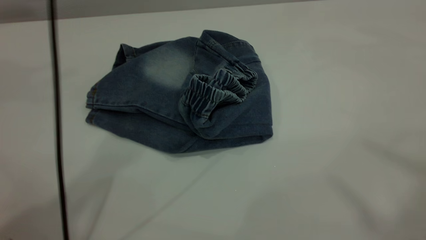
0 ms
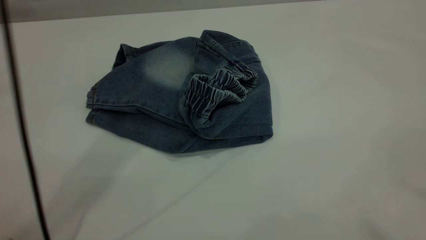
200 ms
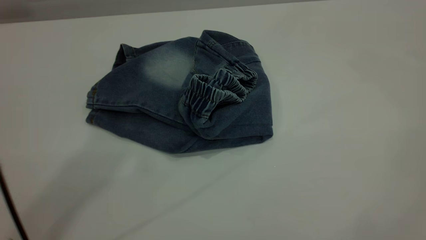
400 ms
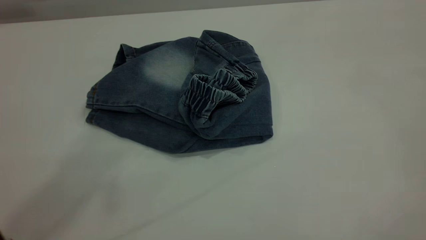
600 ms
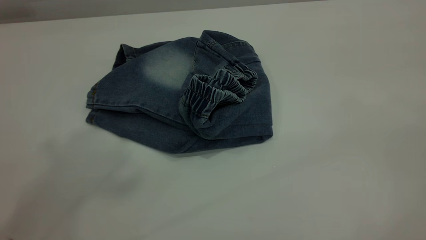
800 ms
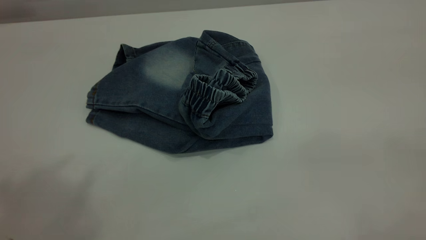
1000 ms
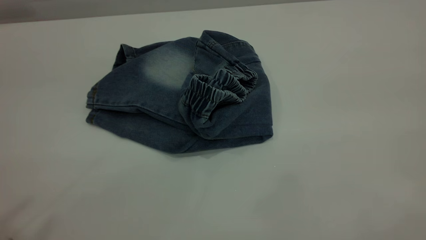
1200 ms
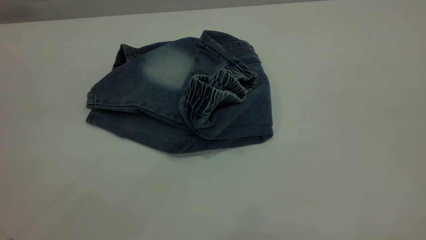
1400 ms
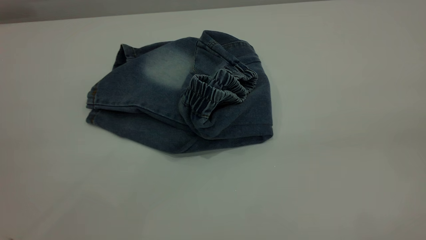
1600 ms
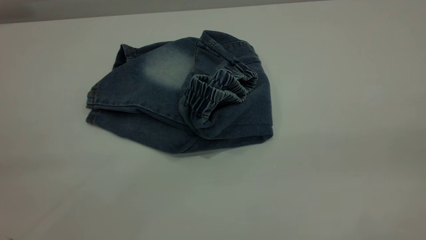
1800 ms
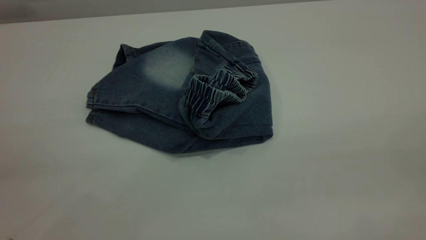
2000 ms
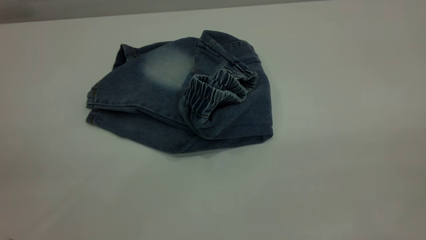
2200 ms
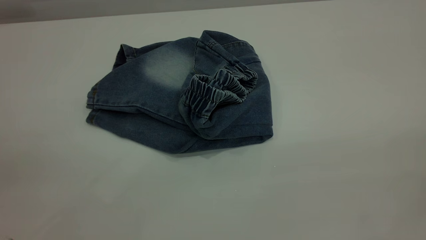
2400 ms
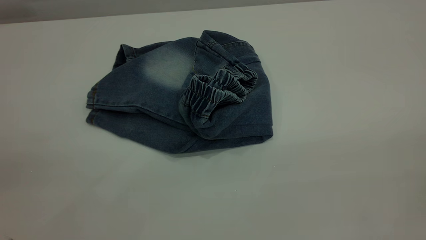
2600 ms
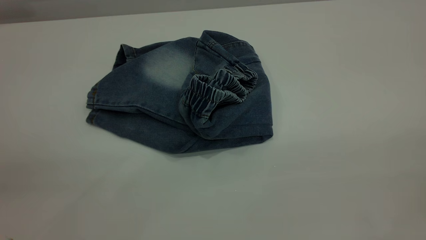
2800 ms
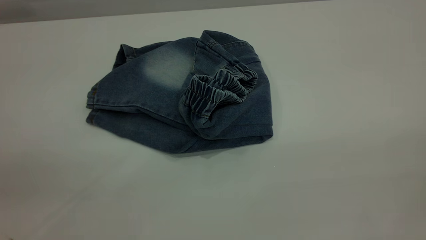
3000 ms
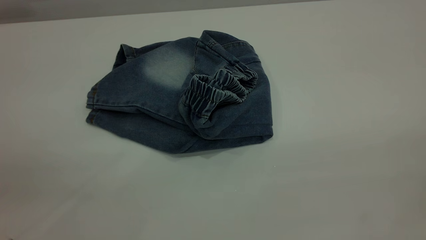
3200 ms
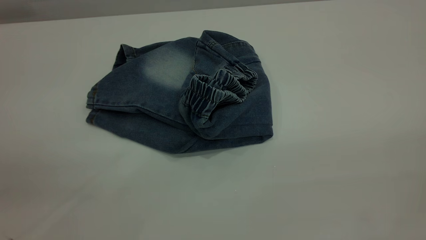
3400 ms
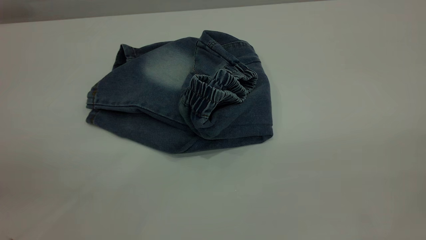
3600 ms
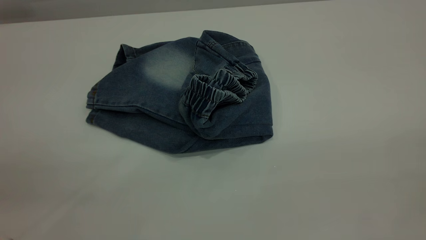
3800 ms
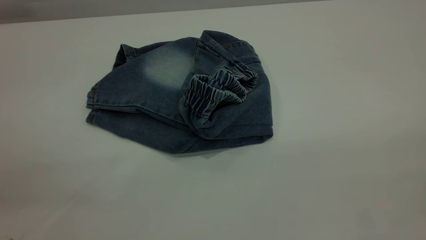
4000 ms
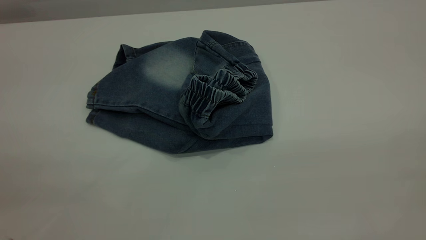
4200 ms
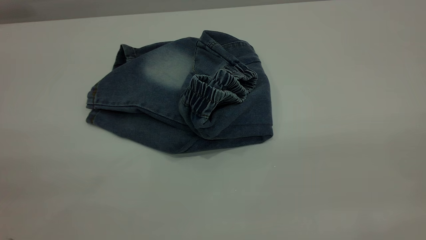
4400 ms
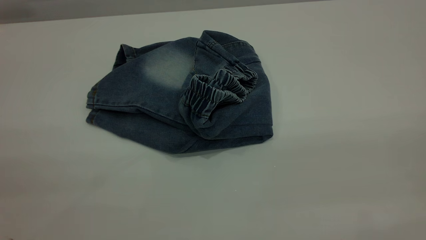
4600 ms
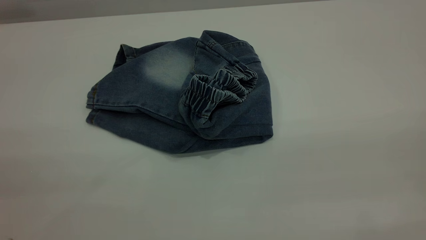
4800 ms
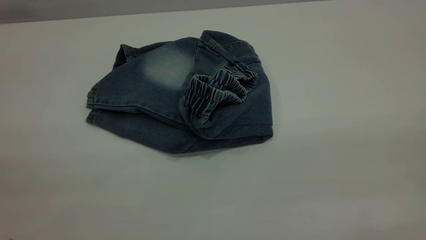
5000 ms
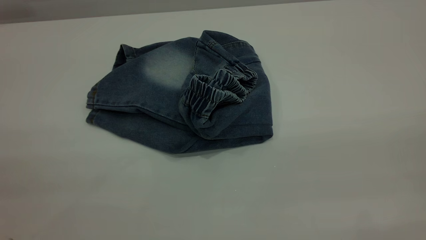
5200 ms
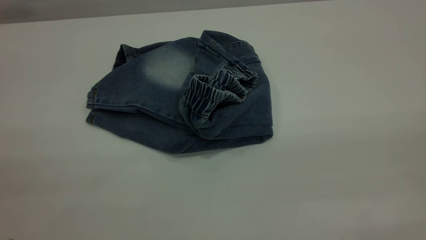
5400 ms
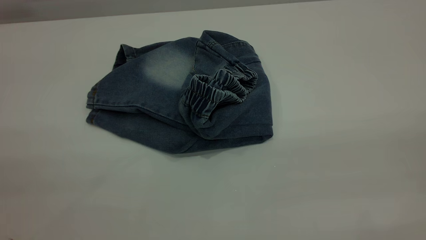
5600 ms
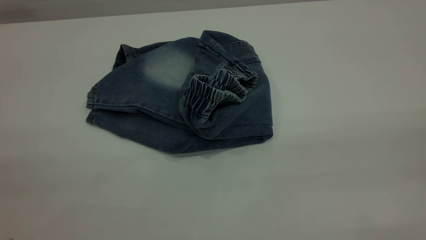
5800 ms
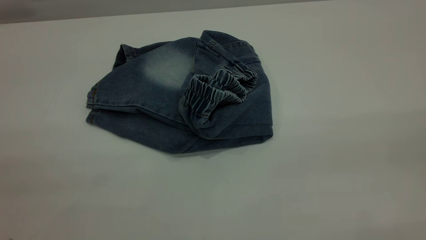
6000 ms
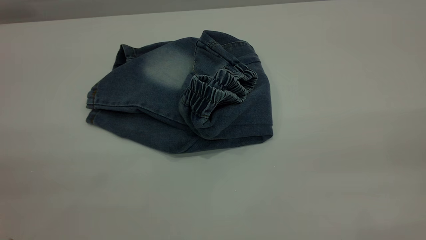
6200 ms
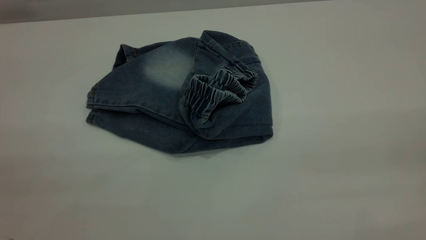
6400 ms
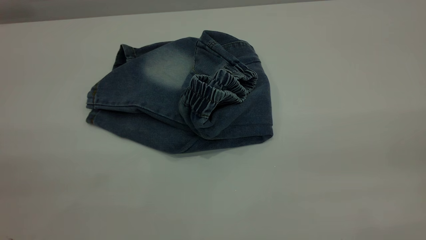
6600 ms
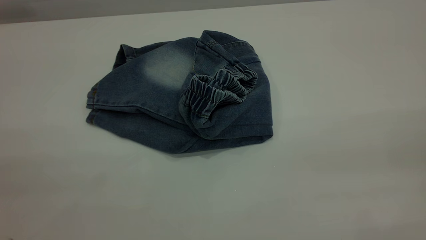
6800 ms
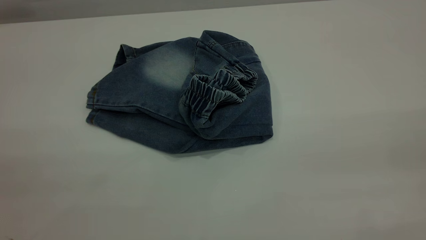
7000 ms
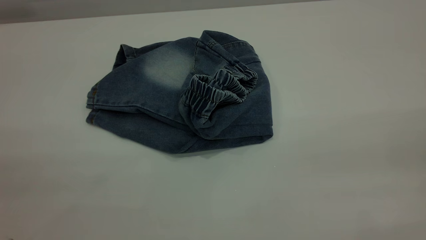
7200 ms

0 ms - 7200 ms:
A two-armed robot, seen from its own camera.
0 ms - 1400 ms: The left gripper travels backward and to the left by about 40 cm.

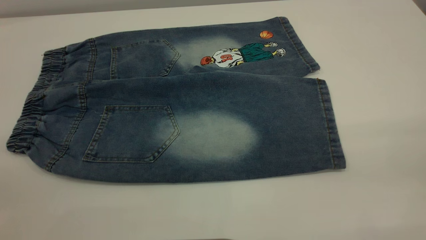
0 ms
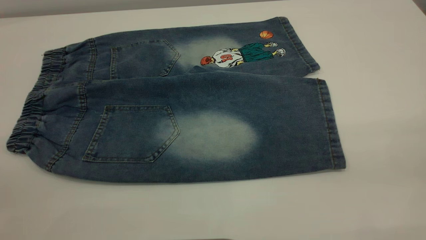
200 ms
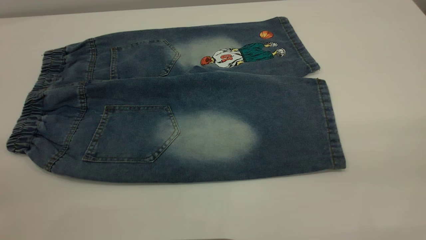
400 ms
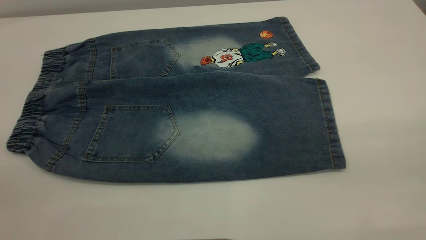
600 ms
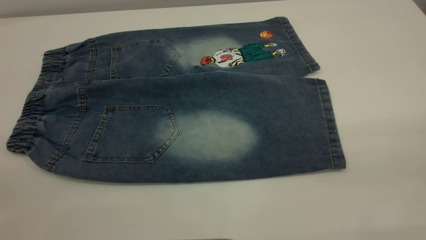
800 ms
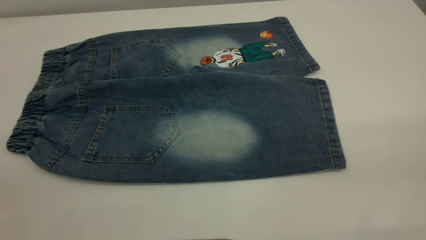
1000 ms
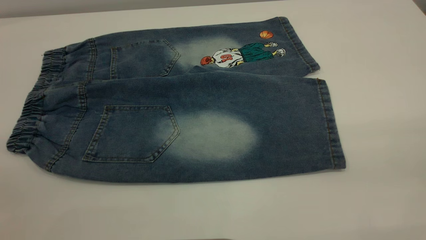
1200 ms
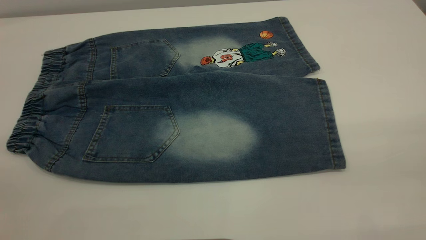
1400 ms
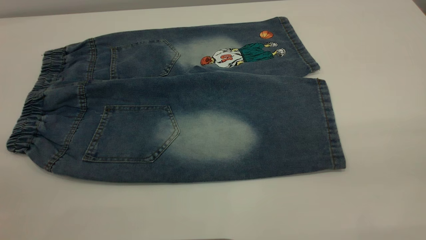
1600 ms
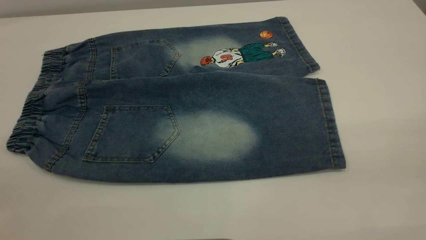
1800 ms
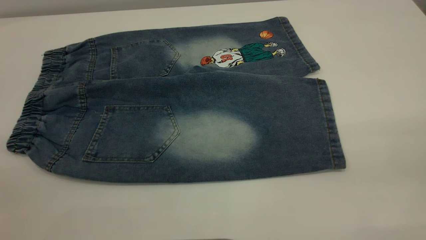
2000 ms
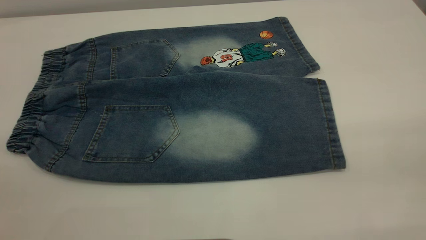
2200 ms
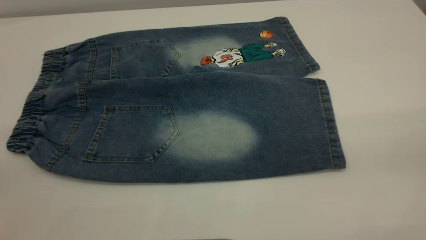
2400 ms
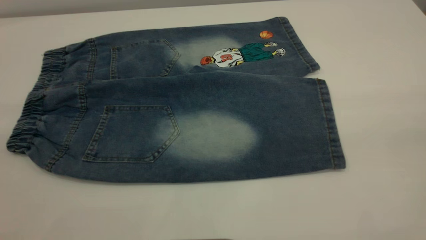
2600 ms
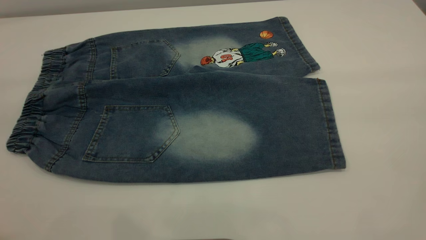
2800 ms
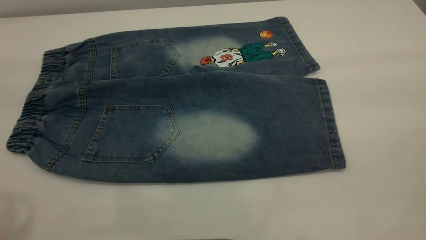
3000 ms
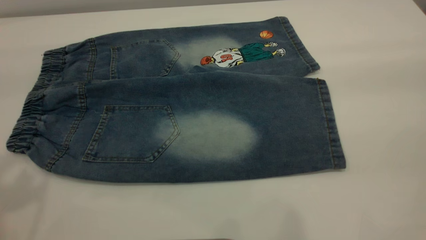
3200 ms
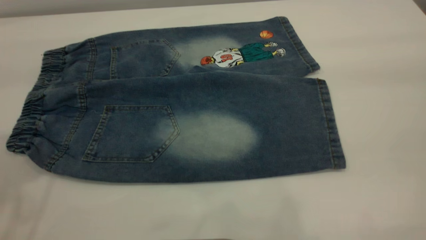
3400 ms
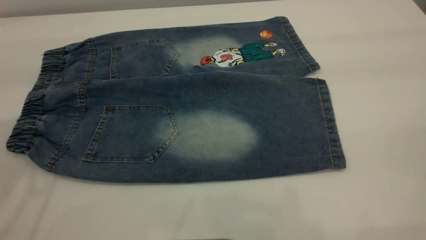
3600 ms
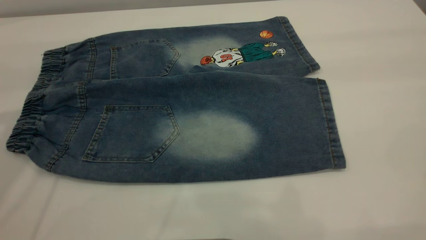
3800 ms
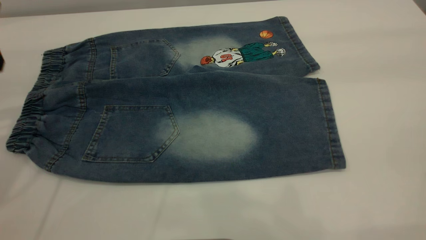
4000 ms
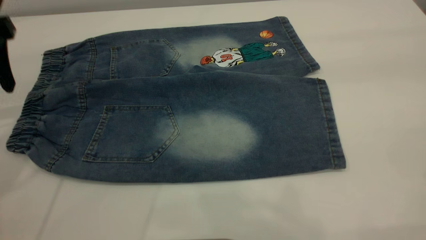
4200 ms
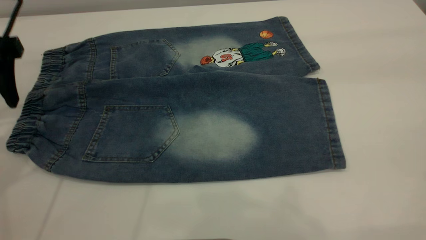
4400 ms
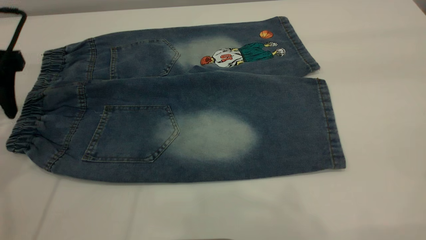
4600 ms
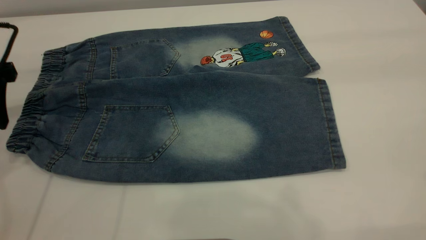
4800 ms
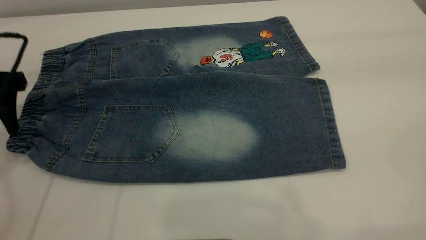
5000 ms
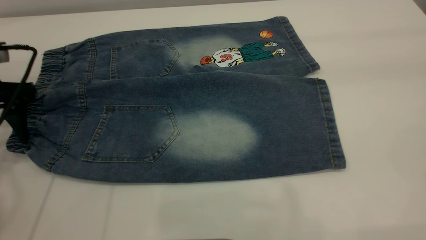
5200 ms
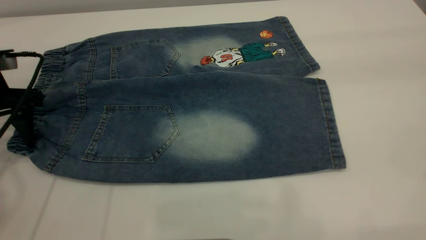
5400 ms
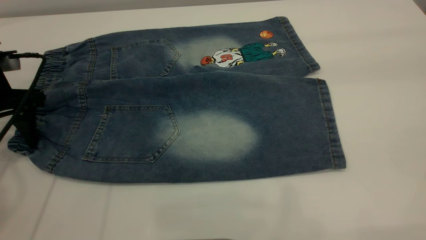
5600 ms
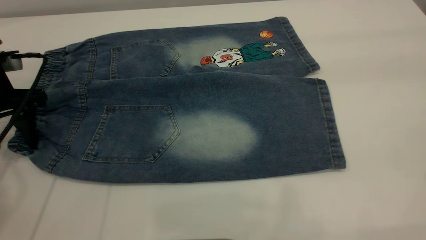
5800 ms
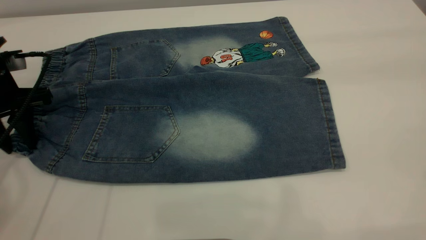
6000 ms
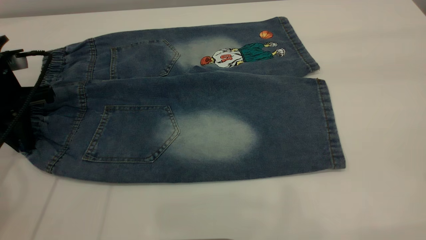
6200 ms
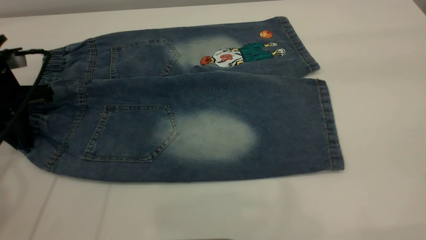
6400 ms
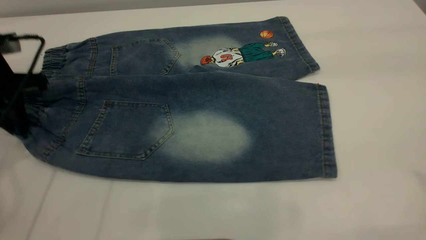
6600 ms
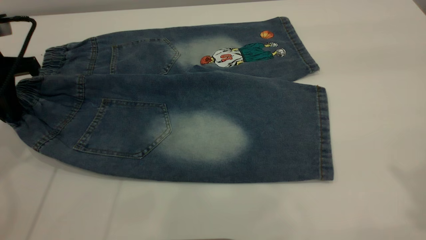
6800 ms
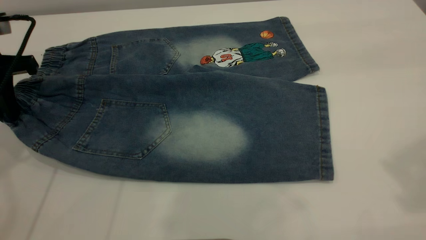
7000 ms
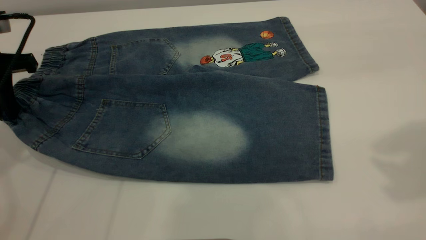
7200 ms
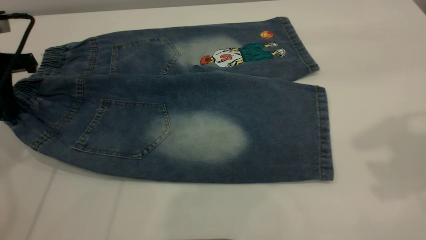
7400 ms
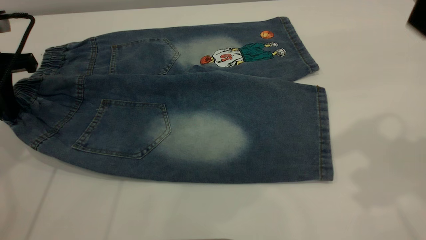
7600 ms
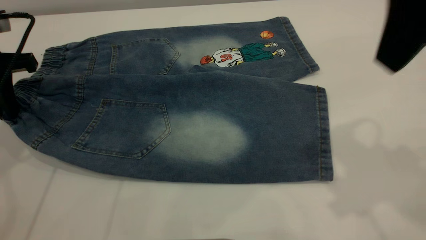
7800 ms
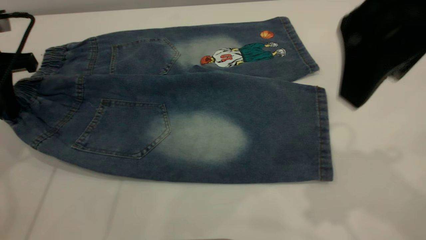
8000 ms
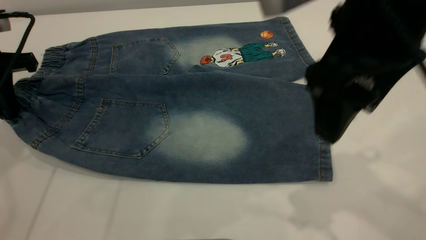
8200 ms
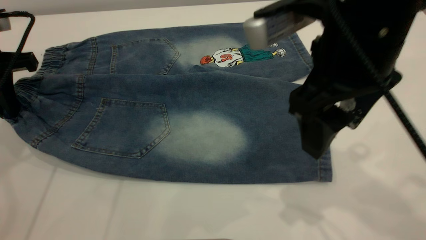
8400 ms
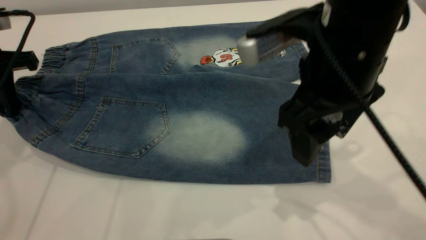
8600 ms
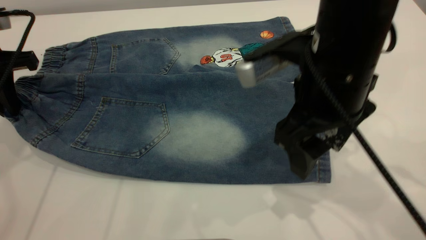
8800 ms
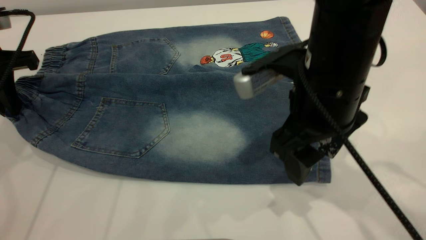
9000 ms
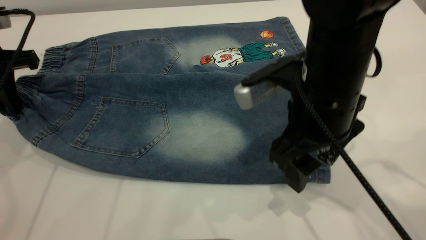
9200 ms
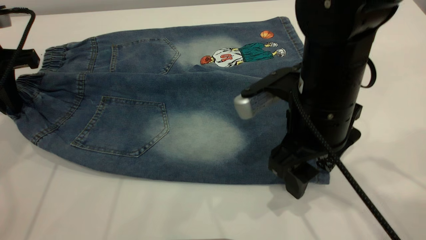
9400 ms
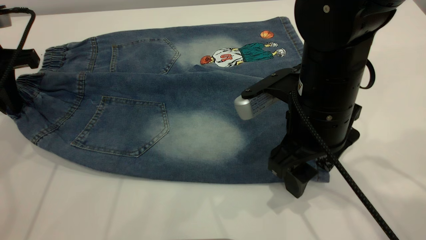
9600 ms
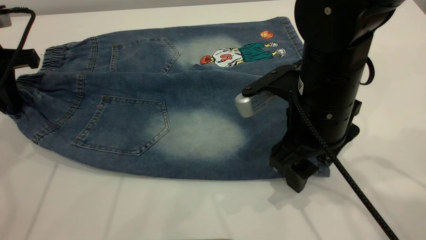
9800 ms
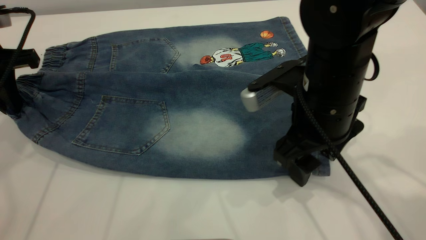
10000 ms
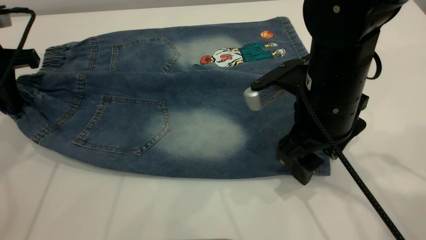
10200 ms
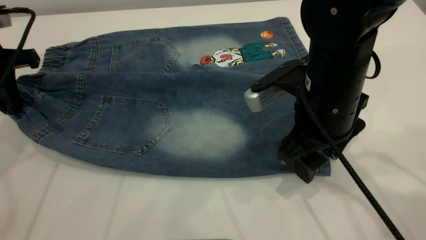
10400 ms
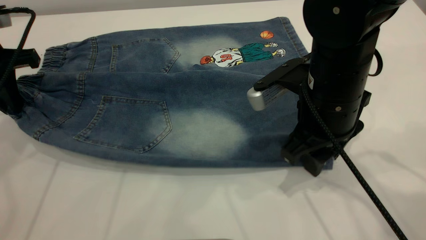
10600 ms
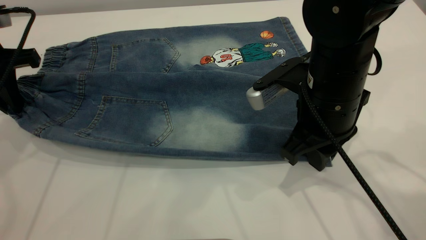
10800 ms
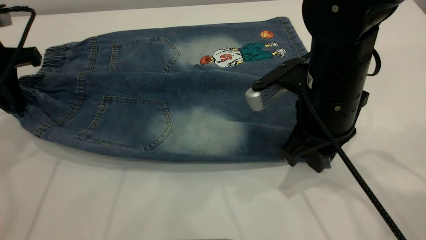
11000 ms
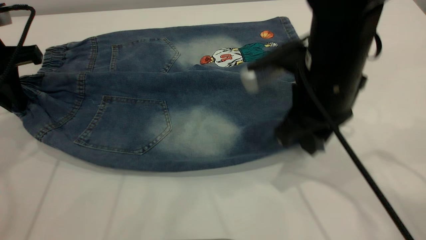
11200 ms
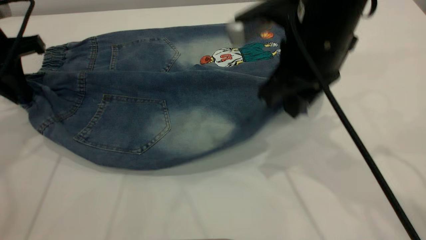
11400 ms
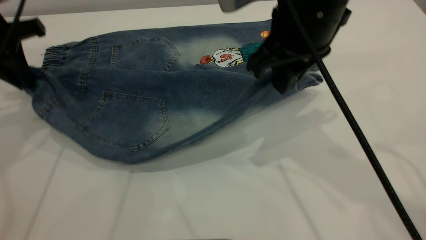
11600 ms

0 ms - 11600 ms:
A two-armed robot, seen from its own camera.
0 ms - 1400 ms: Both grippers stay about where they are.
2800 ms - 4400 ms: The left gripper shifts roughly 30 cm forward and downward.
4400 ms - 5800 ms: The left gripper travels downward by roughly 10 cm.
5800 ms - 7200 ms: The right gripper goes roughly 10 cm forward and downward. The left gripper is displaced upward by about 5 cm, and closes up.
7200 ms - 8800 ms: The right gripper travels downward and to the left by approximately 25 cm.
8800 ms - 10200 ms: The right gripper heads downward, covering approximately 5 cm.
10200 ms - 11600 ms: The right gripper moves upward, roughly 10 cm, and closes its fingers.
